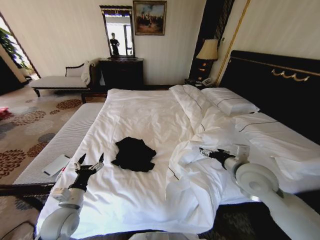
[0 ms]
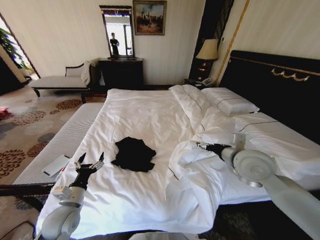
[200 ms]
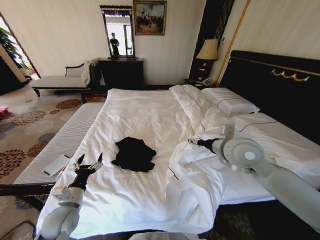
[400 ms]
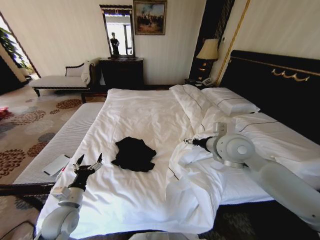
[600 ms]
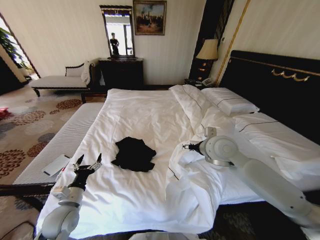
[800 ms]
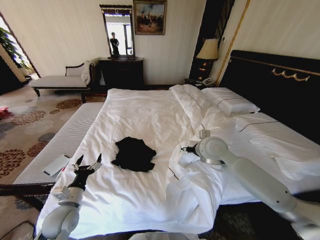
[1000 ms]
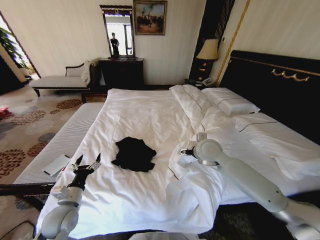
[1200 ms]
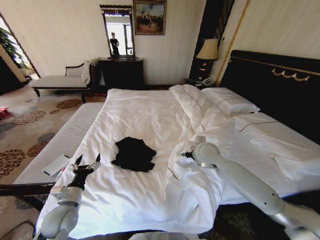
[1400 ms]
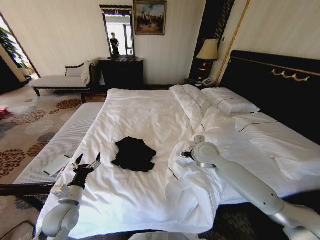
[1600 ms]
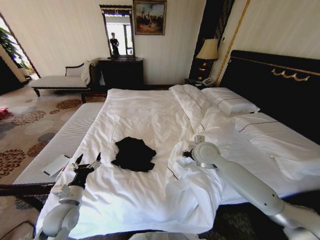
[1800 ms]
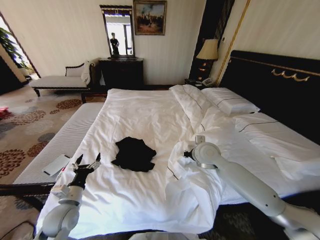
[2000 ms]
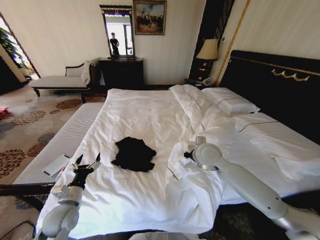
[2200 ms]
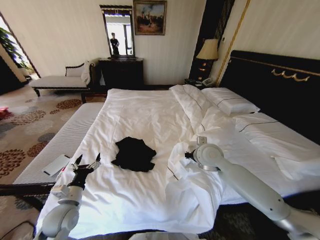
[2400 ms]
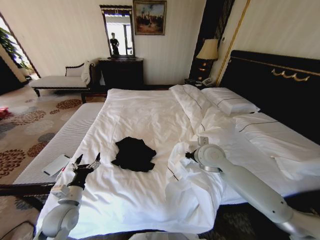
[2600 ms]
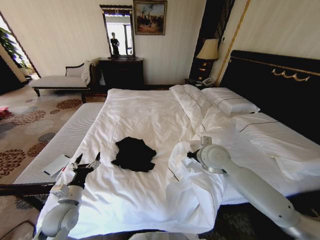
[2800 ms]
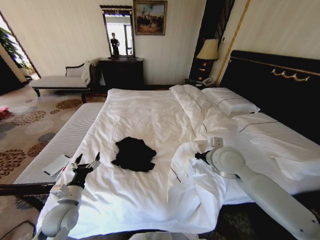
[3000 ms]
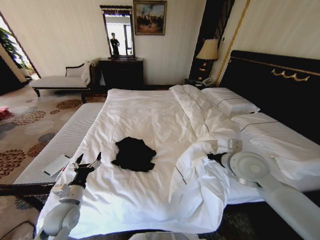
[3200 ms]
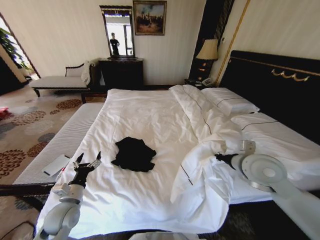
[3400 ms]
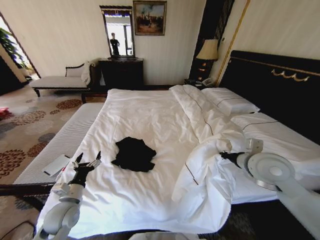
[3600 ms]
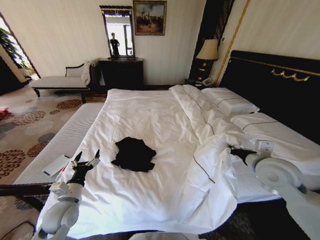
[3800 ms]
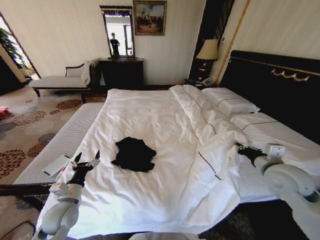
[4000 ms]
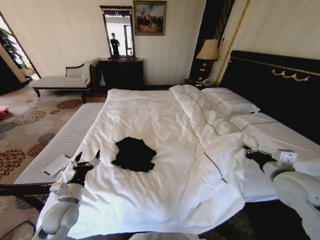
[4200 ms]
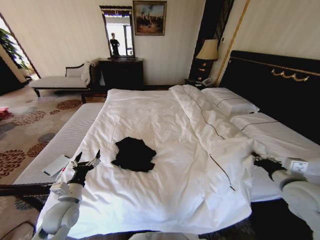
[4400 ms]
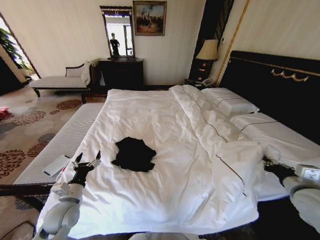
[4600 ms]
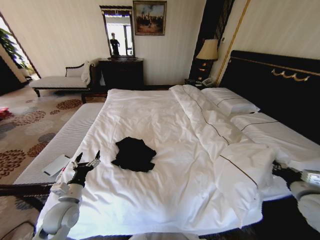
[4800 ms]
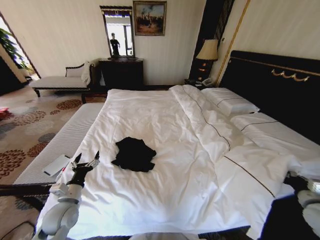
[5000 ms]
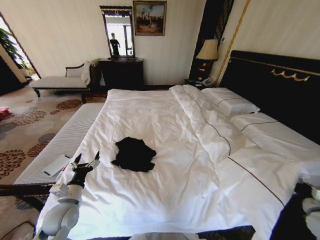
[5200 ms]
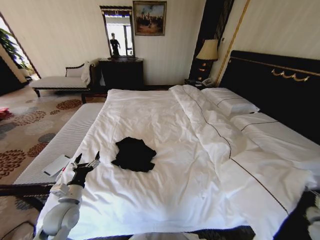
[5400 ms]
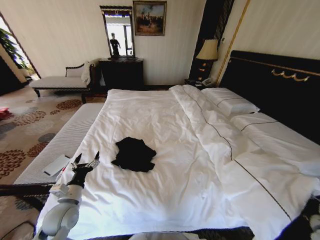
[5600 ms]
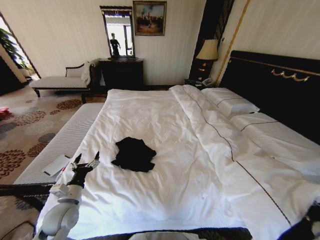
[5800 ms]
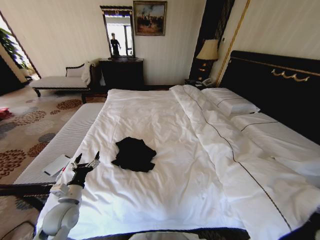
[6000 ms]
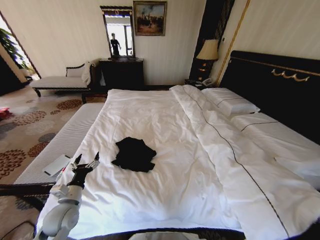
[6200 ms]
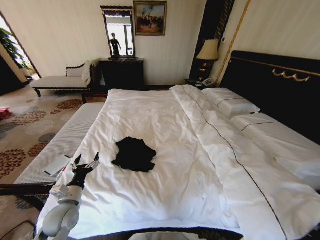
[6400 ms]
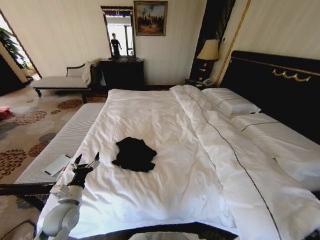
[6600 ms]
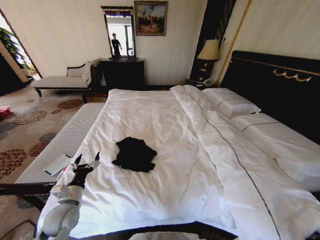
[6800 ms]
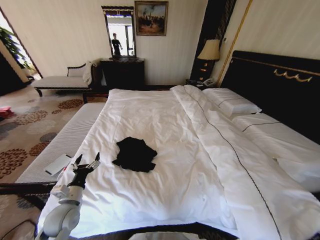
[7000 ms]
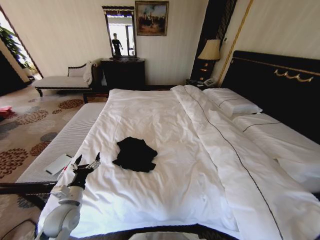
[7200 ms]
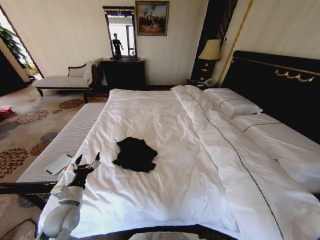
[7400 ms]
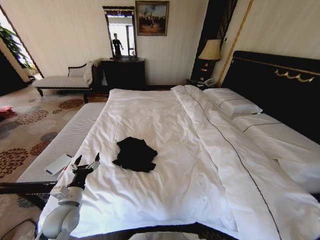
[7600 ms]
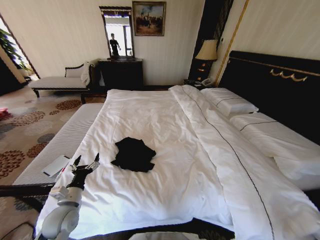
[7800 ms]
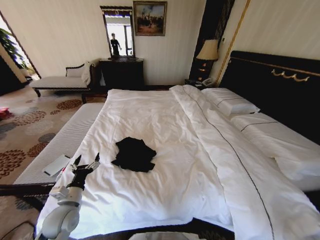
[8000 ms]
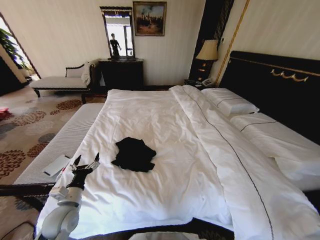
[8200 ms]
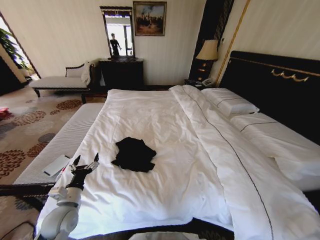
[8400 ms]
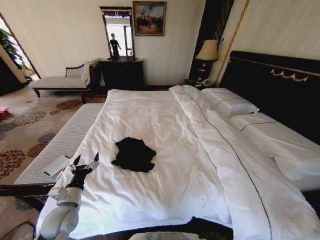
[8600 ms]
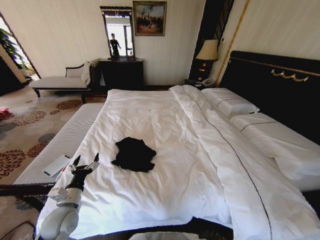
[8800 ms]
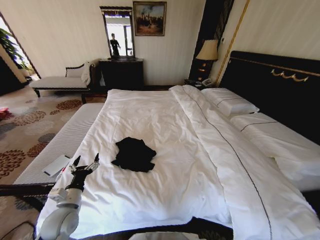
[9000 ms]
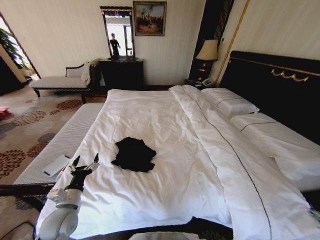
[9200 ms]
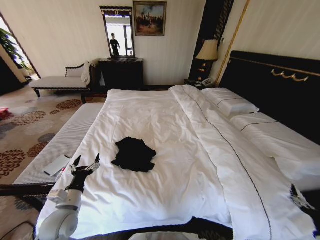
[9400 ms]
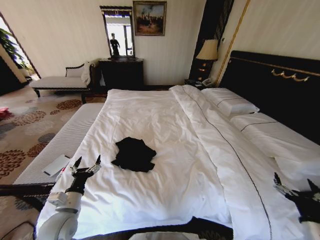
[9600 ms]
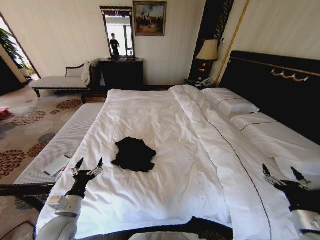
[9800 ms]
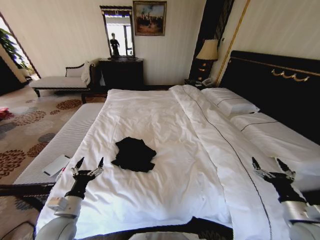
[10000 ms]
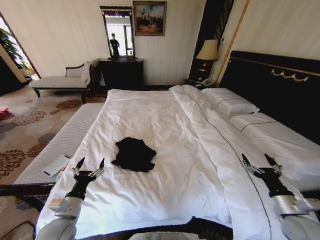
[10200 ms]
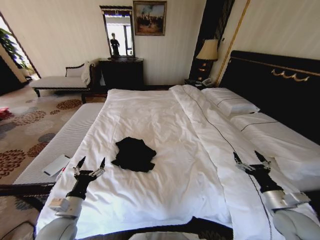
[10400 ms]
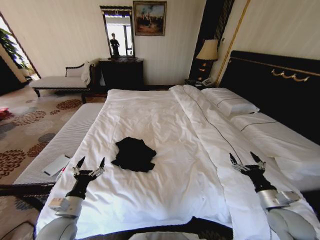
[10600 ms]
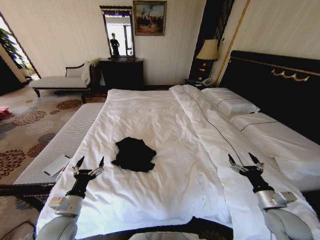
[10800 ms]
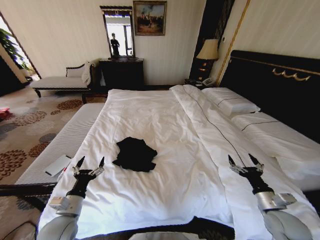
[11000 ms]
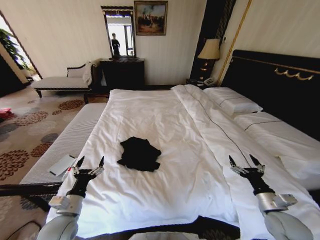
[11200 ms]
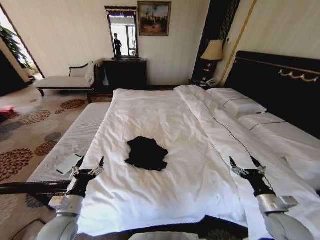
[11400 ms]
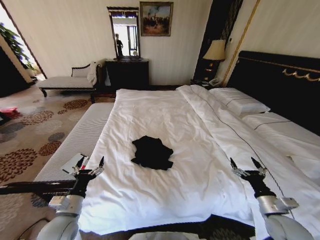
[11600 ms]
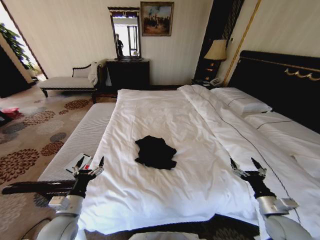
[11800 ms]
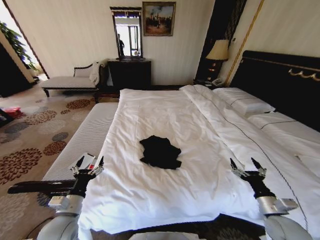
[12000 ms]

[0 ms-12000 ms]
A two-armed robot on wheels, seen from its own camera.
Task of the whole recording: Fold the clothes on the bed.
0 ms to 1600 ms: The right gripper moves forward and to the left, some 15 cm.
1600 ms to 3000 ms: The right gripper goes some 5 cm backward, and closes its fingers.
3000 ms to 4400 ms: The right gripper moves to the right and backward, approximately 20 cm.
4400 ms to 6000 ms: The right gripper shifts about 25 cm downward, backward and to the right.
6000 ms to 7600 ms: The right gripper is displaced downward and backward by some 15 cm.
7600 ms to 9000 ms: The right gripper goes approximately 10 cm upward, and opens its fingers.
9000 ms to 10400 ms: The right gripper heads forward, to the left and upward, covering some 20 cm.

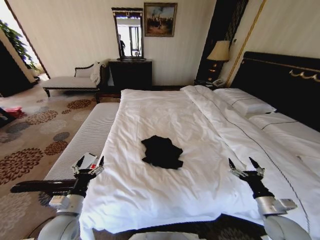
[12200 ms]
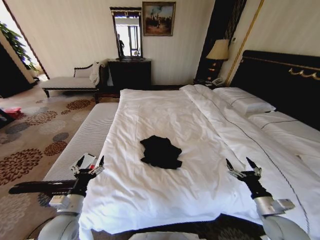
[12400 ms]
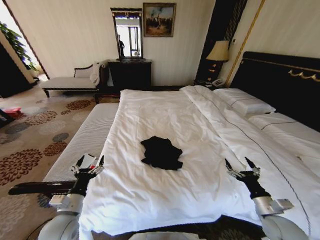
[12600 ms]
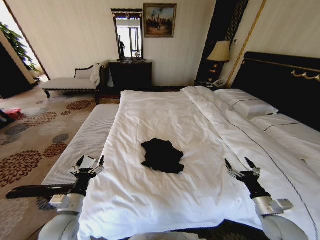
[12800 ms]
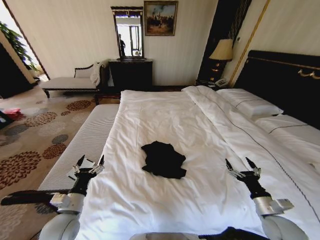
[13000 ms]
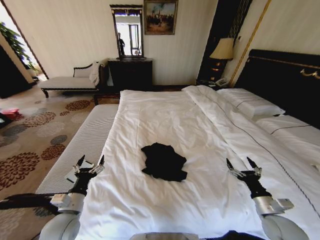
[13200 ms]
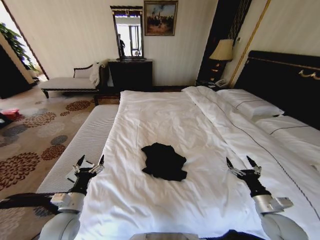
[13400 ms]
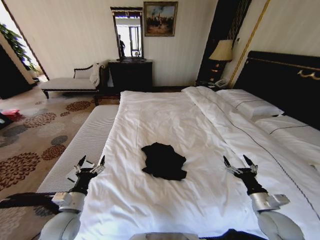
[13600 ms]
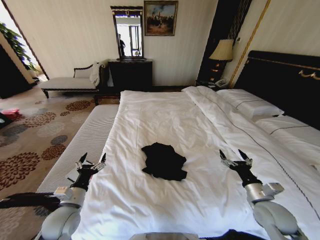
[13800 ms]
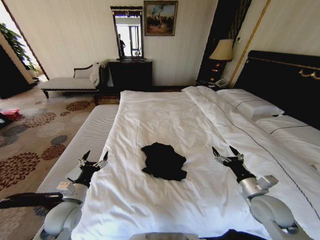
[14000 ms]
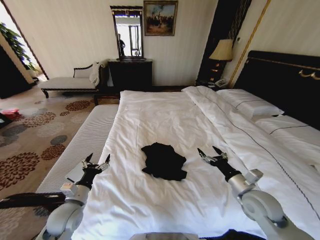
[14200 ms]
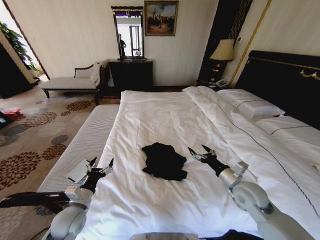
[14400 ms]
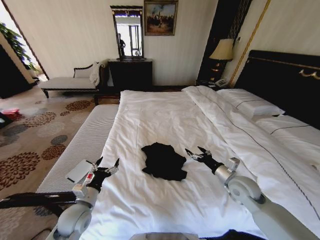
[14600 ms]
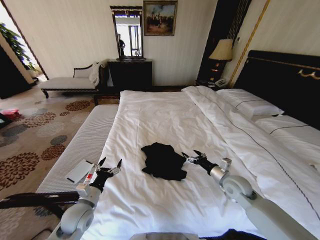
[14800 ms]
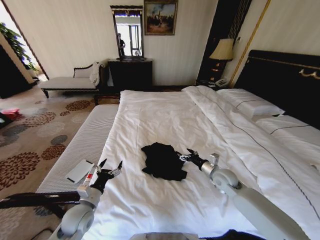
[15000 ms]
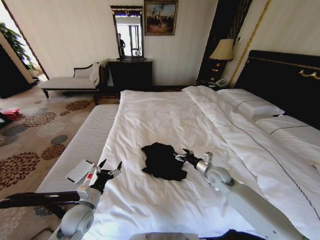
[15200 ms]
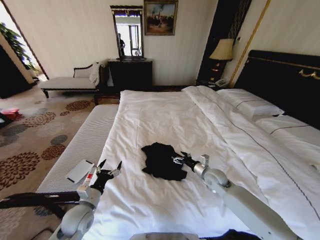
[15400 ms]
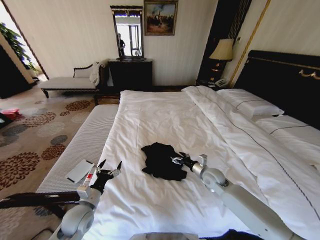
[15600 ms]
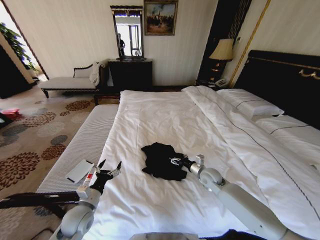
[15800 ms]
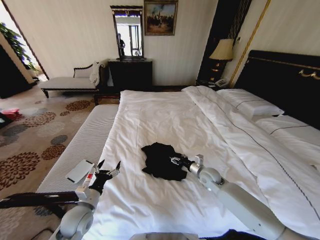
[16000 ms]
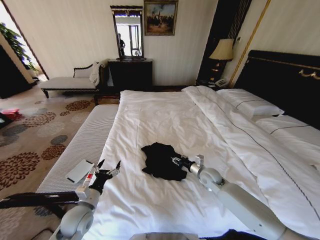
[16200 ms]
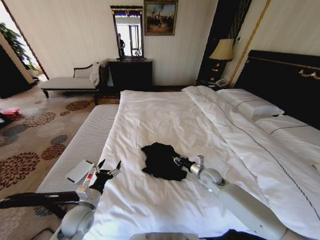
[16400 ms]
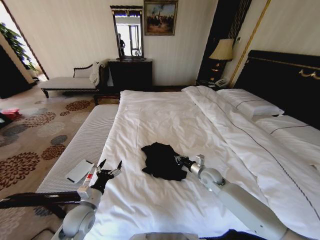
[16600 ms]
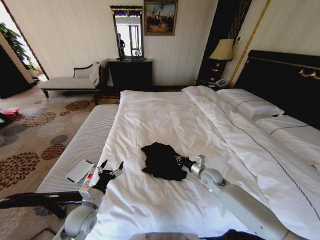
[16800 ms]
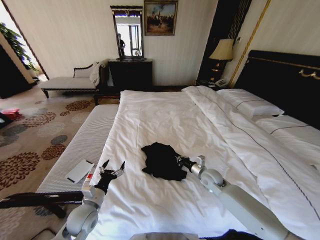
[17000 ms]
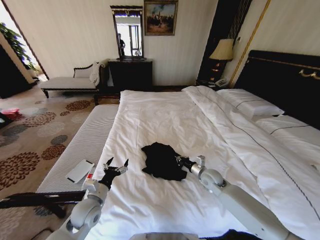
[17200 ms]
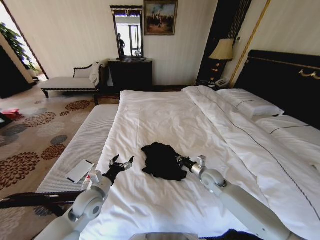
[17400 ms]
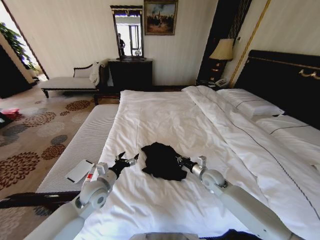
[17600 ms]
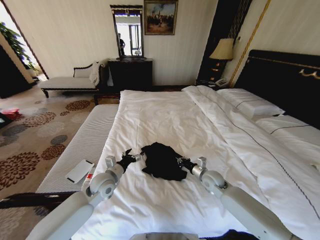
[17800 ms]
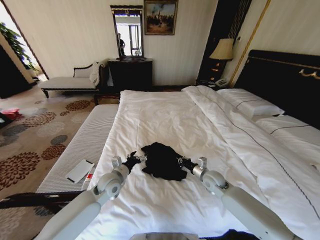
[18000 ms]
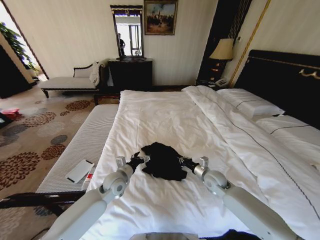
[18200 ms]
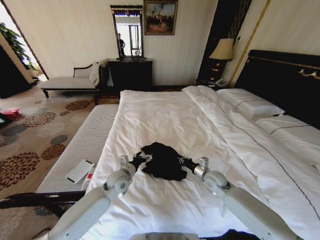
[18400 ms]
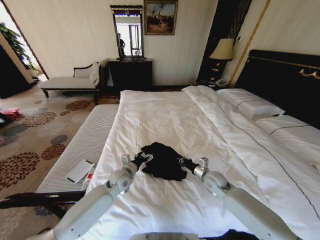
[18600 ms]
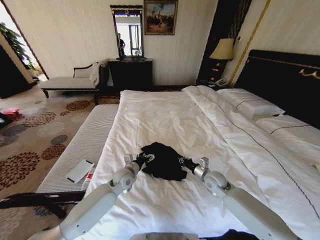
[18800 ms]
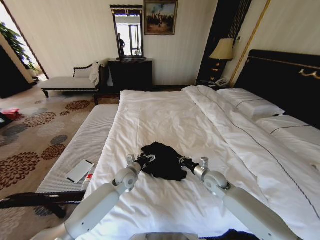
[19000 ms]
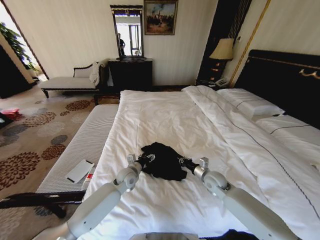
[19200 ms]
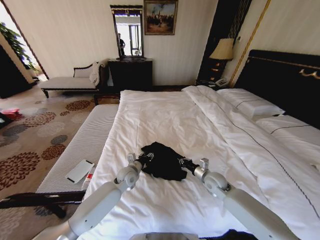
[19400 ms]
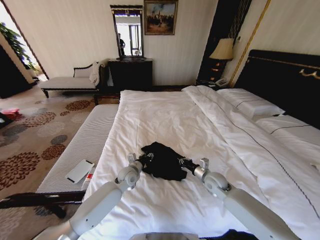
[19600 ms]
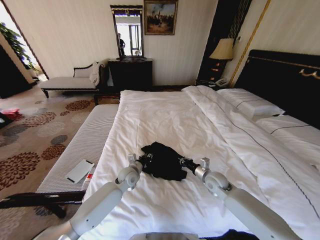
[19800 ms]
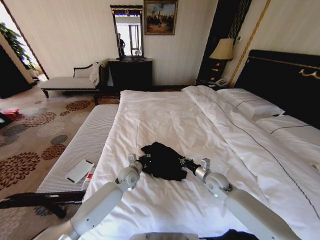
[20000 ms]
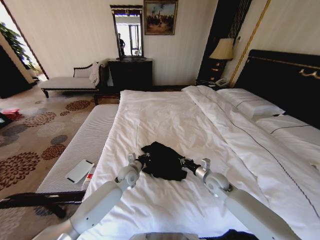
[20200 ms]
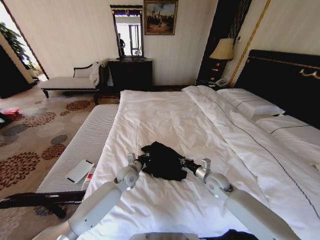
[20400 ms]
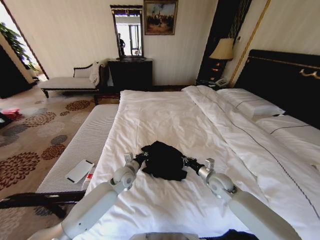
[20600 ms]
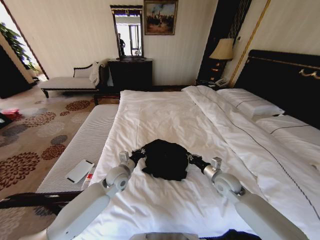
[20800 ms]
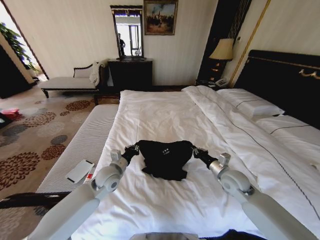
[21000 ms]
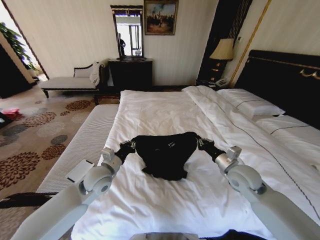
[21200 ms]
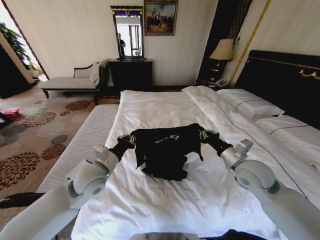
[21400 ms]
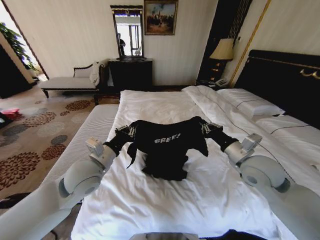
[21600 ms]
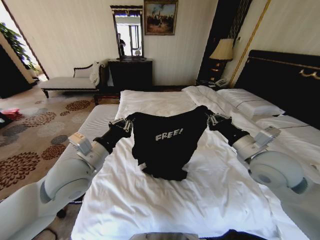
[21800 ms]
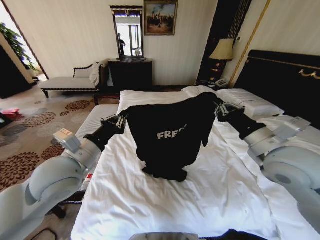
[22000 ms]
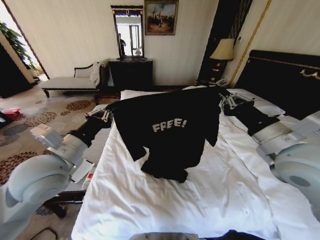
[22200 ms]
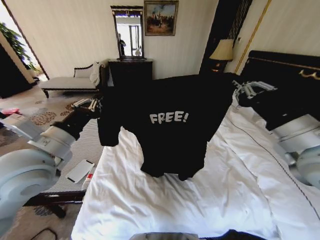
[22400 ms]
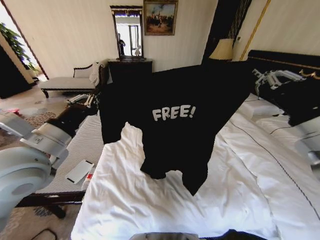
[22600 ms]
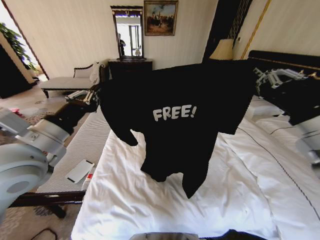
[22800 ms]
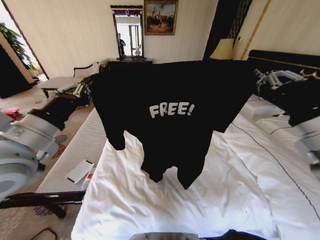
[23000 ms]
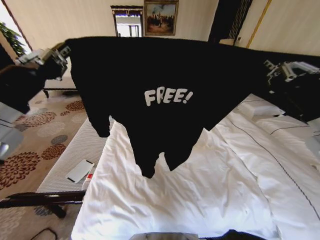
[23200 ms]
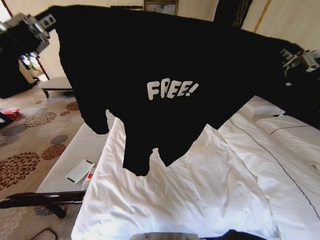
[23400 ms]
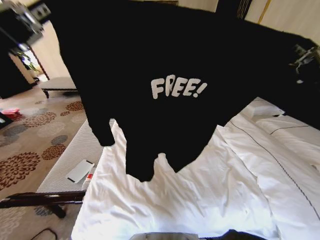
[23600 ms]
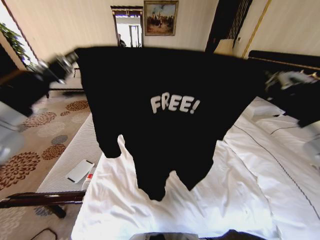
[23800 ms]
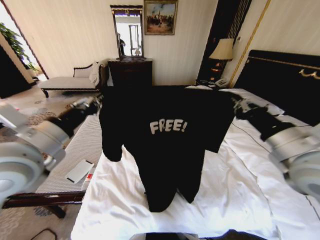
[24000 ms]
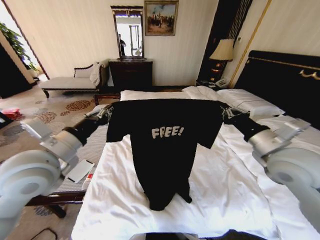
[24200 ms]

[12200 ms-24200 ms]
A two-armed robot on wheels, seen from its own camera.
Task of the whole recording: Fold the clothes on the bed.
12200 ms to 13800 ms: The right gripper ends up some 5 cm from where it was.
13800 ms to 15200 ms: The right gripper moves forward and to the left, about 20 cm.
15200 ms to 16600 ms: The right gripper closes.
16600 ms to 18200 ms: The left gripper is displaced forward and to the right by roughly 15 cm.
18200 ms to 19800 ms: The left gripper shifts by roughly 5 cm, and closes.
19800 ms to 21200 ms: The right gripper is displaced upward by approximately 15 cm; the left gripper heads upward, to the left and backward, covering some 15 cm.
21200 ms to 22600 ms: The right gripper is displaced upward and backward by approximately 25 cm. The left gripper shifts about 20 cm upward.
22600 ms to 24200 ms: The left gripper goes upward and returns, approximately 10 cm each way. Meanwhile the right gripper moves downward and forward, roughly 10 cm.
